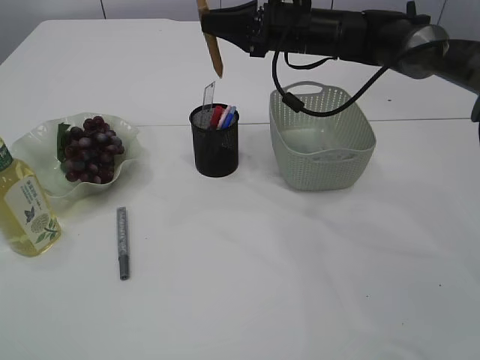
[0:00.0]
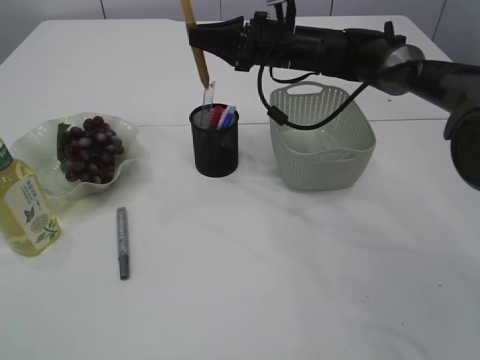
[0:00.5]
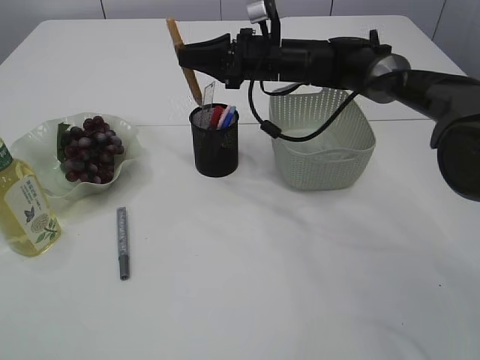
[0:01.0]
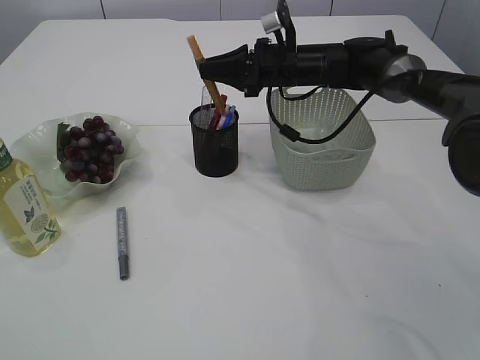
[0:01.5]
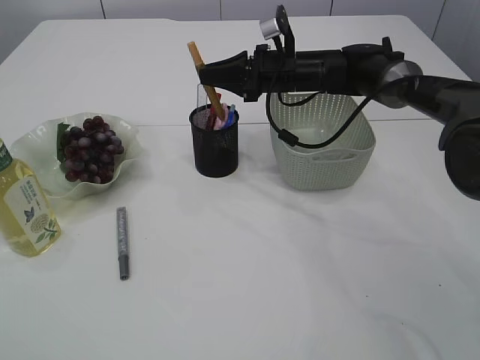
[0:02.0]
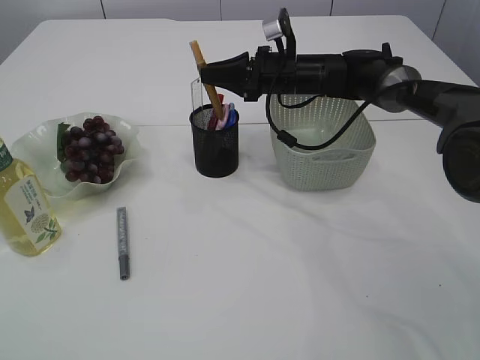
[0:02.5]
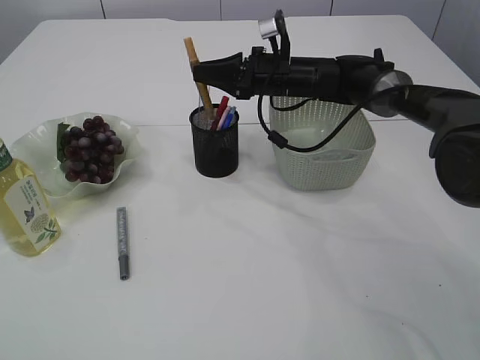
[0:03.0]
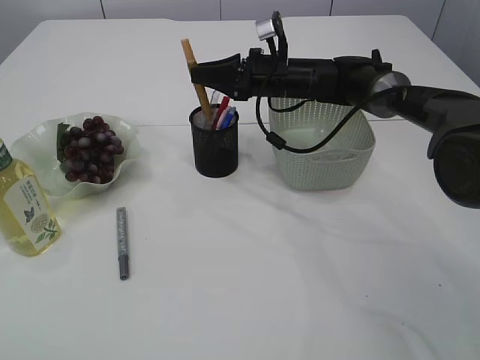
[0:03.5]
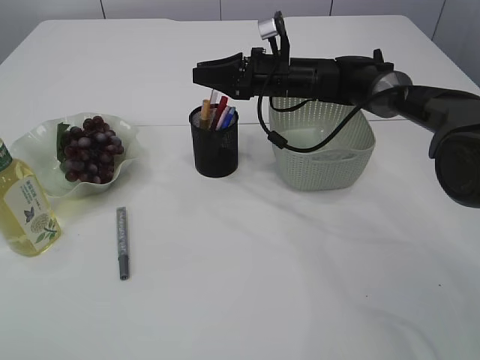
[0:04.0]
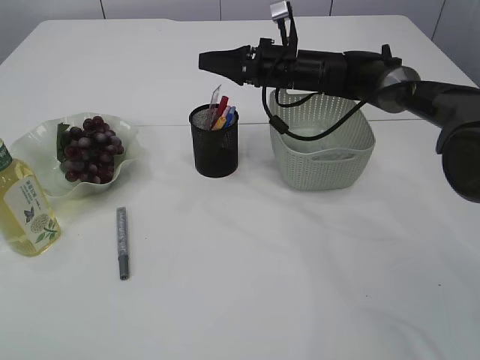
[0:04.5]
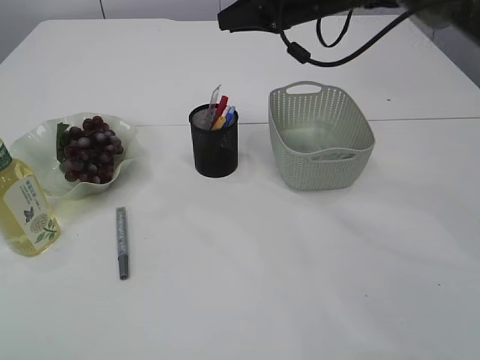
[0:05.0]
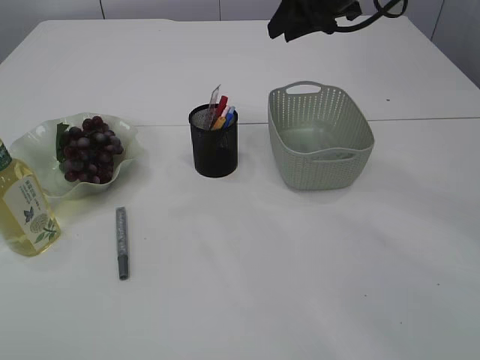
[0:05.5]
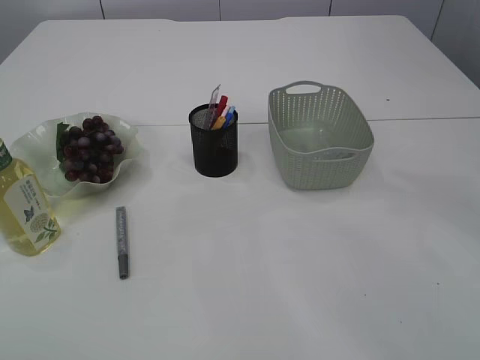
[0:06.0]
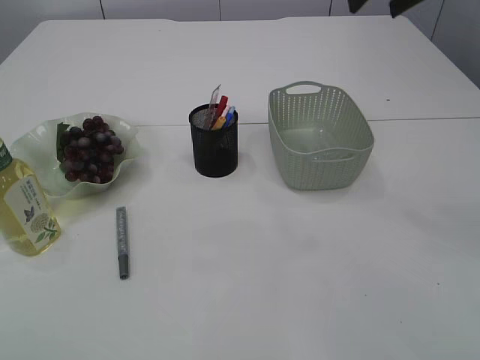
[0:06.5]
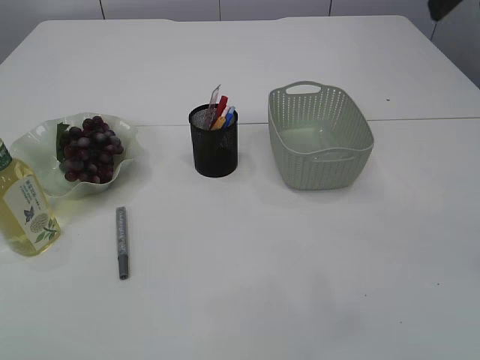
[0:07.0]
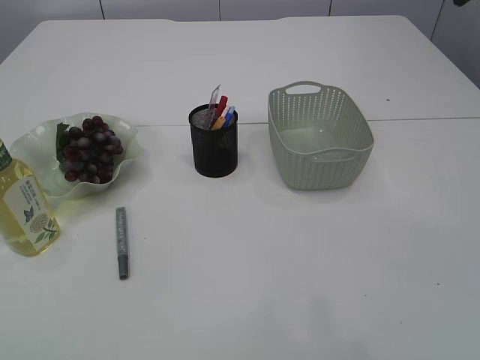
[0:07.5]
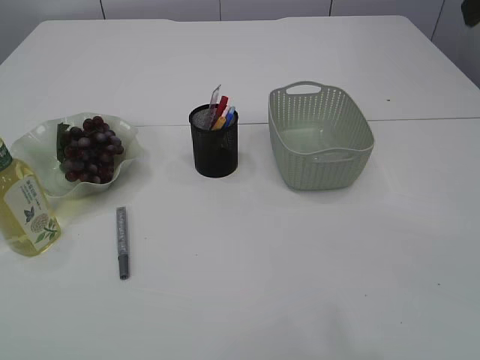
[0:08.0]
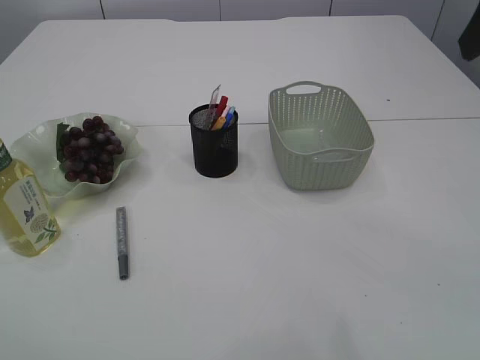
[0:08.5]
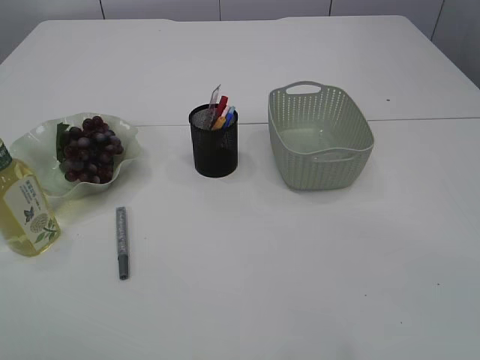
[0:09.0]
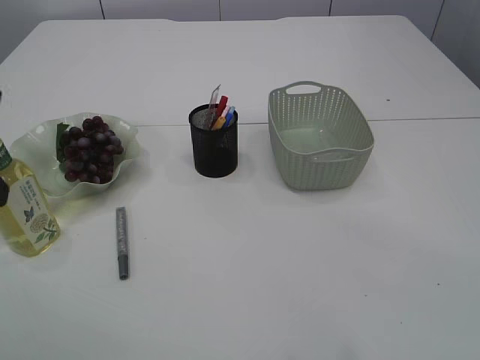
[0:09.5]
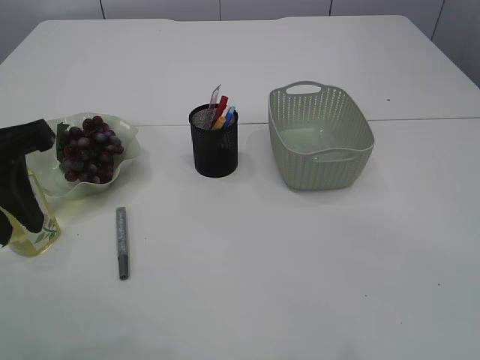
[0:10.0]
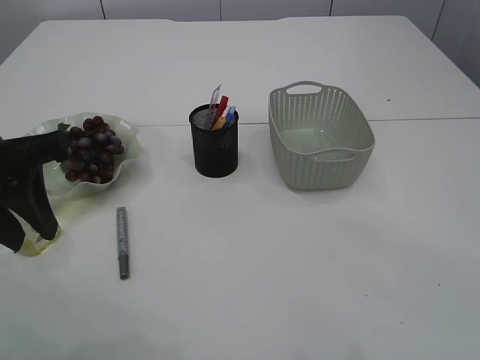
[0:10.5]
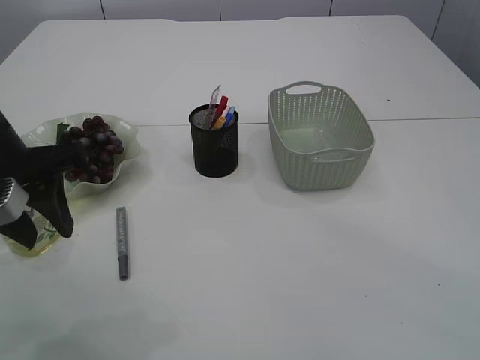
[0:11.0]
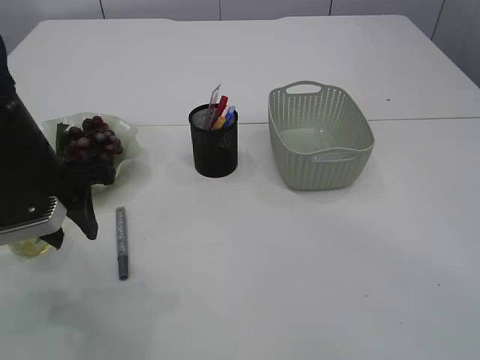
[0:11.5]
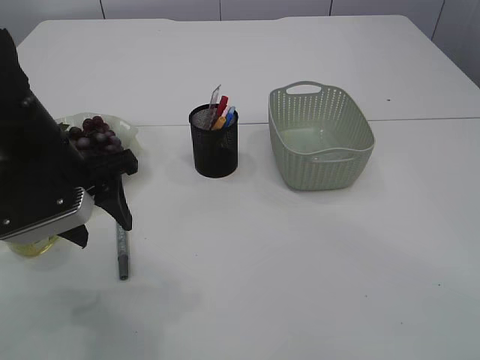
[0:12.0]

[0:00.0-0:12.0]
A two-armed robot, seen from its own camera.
Step, 0:00.0 to 0:04.5: place the yellow glue into the pen holder.
0:00.0 to 0:02.0: The right gripper travels downward by some 5 cm.
0:02.0 to 0:04.0: The grippers make only small movements.
0:04.0 to 0:06.0: The right gripper is displaced upward and to the right by approximately 25 cm, and opens up.
0:08.0 to 0:10.0: The left gripper heads forward, downward and to the right, covering approximately 15 cm.
0:10.0 to 0:12.0: The left gripper shifts approximately 10 cm downward and forward, and opens up.

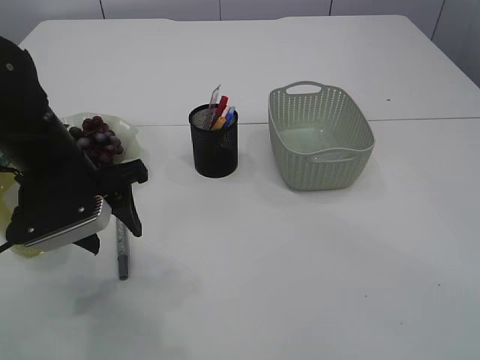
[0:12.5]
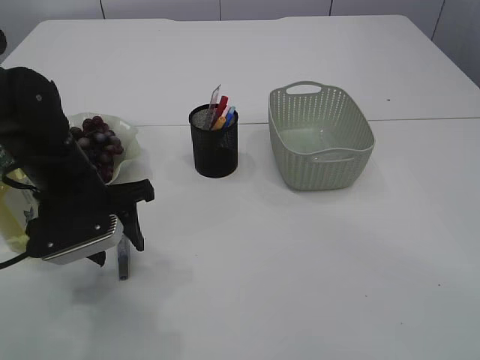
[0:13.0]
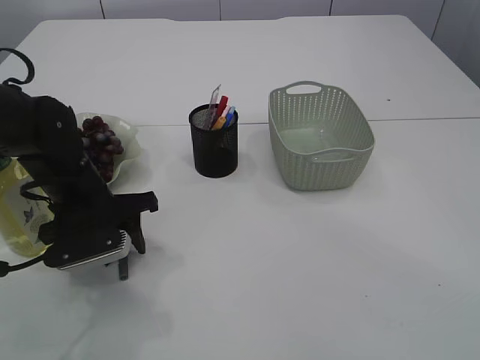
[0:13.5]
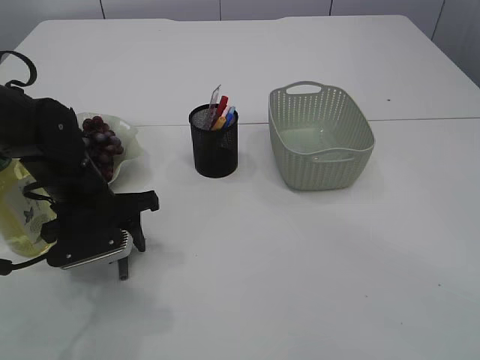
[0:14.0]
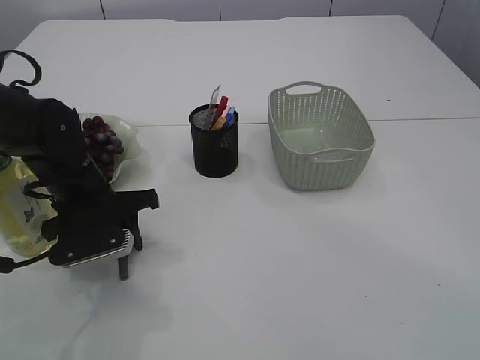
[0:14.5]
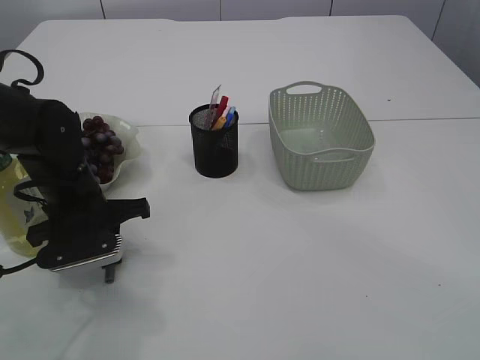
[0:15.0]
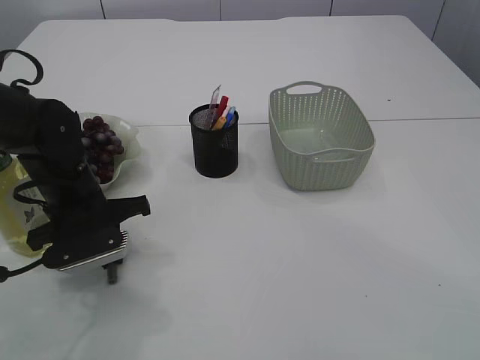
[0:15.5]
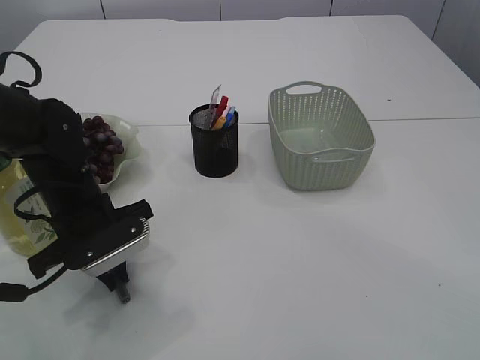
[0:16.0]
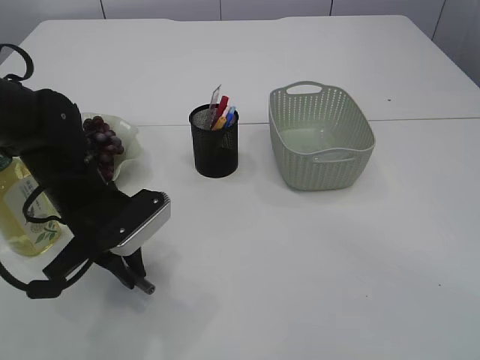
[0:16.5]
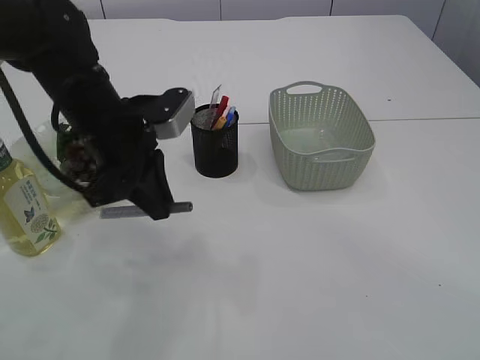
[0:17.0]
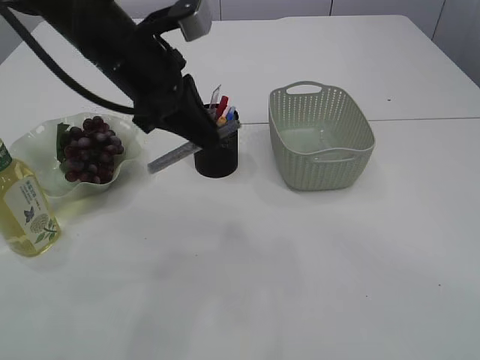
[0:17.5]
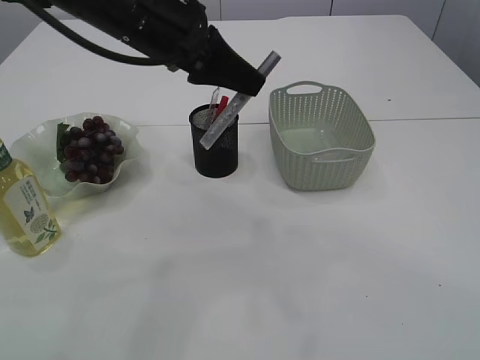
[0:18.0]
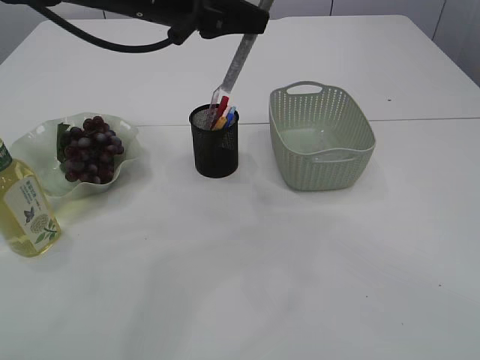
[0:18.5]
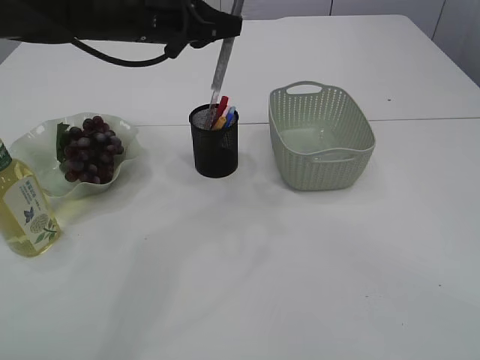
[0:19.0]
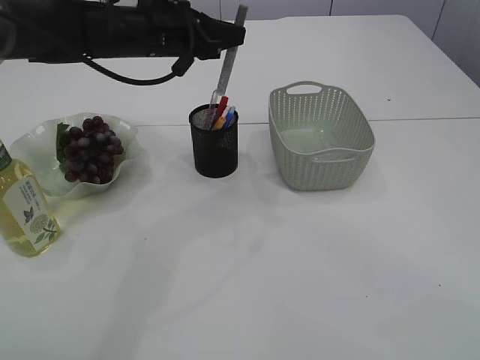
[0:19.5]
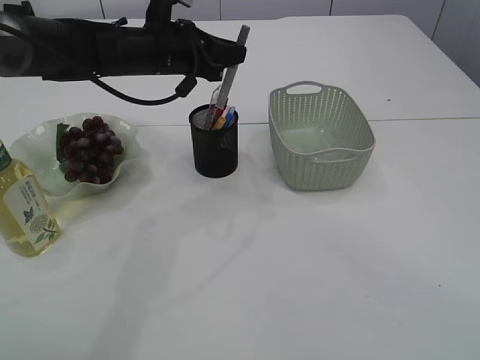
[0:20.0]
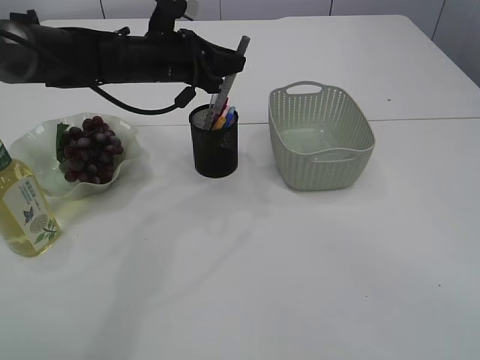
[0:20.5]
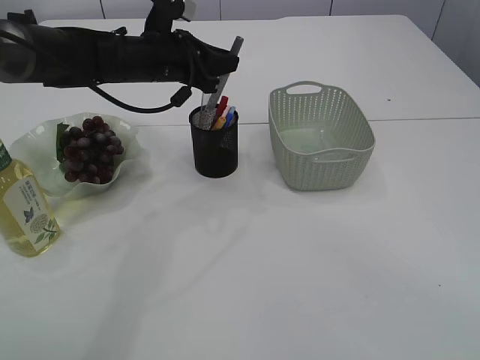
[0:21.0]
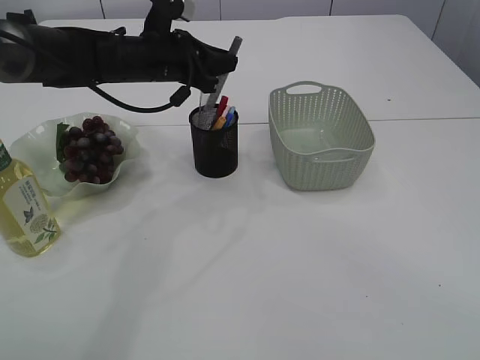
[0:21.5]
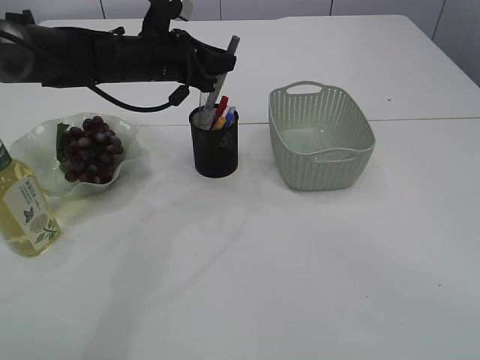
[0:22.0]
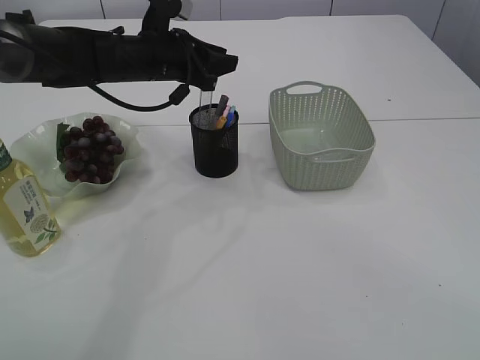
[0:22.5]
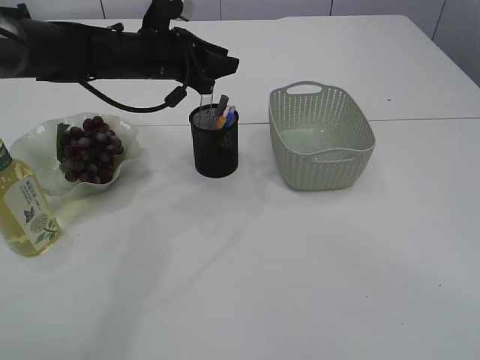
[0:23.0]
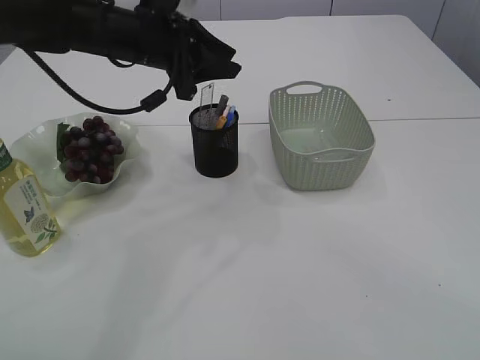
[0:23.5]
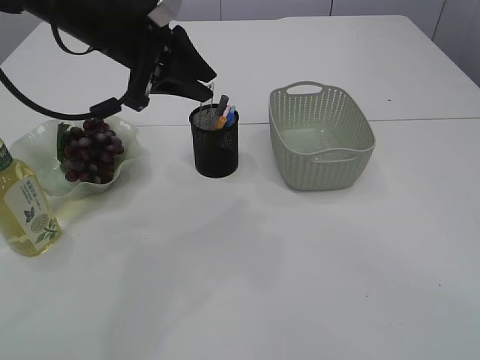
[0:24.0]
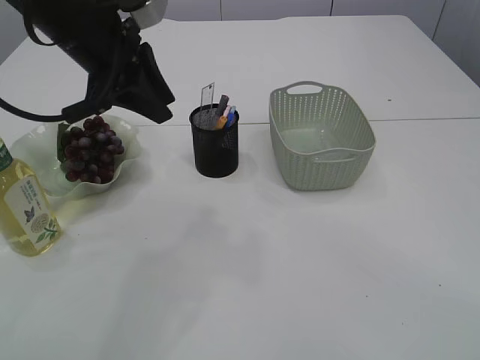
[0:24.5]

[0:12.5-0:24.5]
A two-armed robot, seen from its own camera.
Step, 0:12.5 to 0:17.0: pick up the silver glue.
Step, 0:17.5 to 0:22.5: place the silver glue into the pen holder.
0:12.5 to 0:14.5: The left gripper travels downward by about 10 cm.
0:14.5 to 0:16.5: The left gripper closes.
0:16.5 to 0:18.5: The left gripper shifts about 20 cm upward and forward.
0:18.5 to 0:20.5: The left gripper moves downward and forward, roughly 15 cm.
0:20.5 to 0:22.5: The left gripper opens up.
0:22.5 to 0:24.5: The left gripper shifts some 10 cm backward and upward.

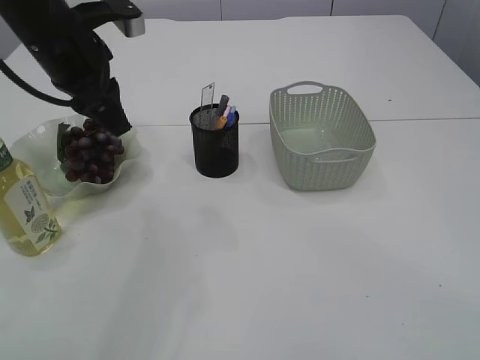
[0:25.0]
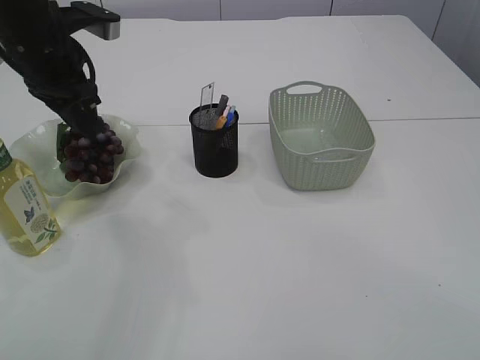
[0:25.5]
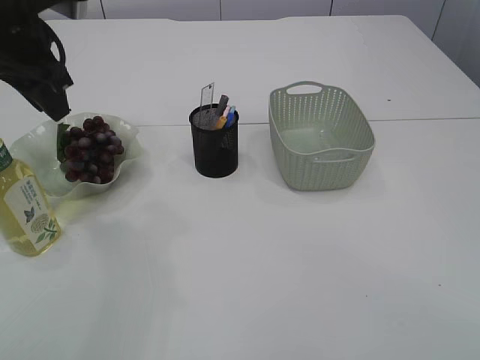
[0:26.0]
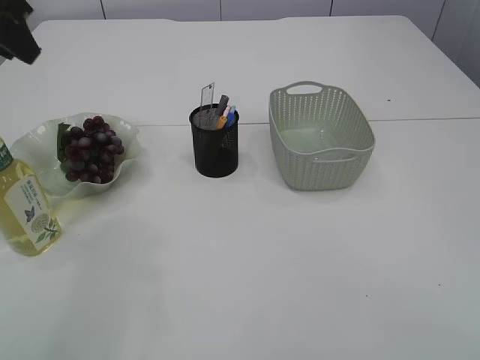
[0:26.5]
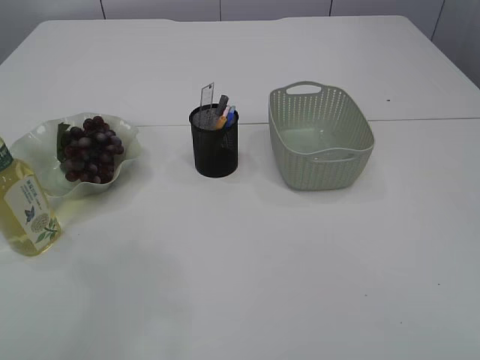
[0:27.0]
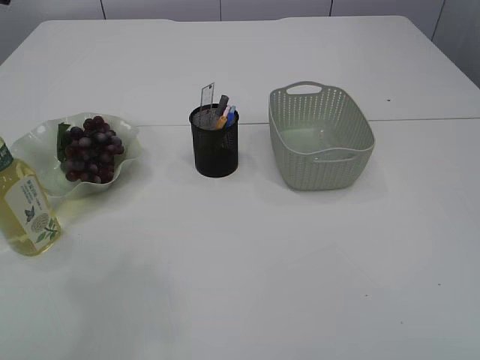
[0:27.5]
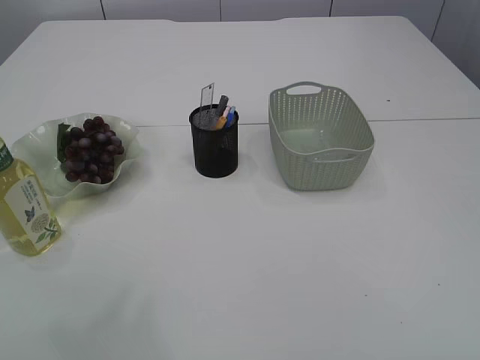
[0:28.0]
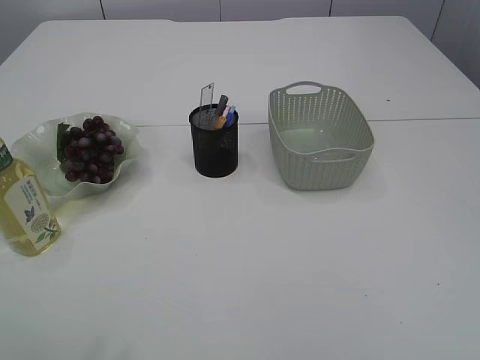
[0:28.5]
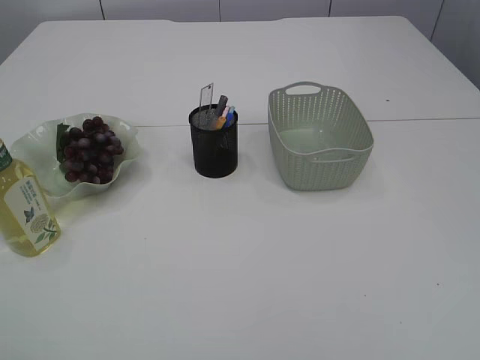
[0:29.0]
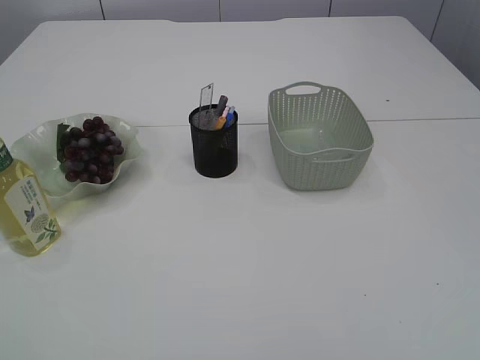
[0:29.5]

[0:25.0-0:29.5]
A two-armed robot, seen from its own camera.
0:25.0 to 0:27.0: The left gripper moves upward and to the left, roughly 15 cm.
